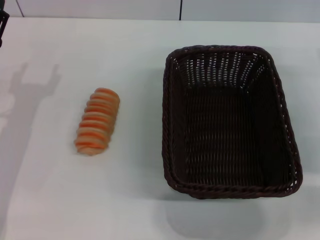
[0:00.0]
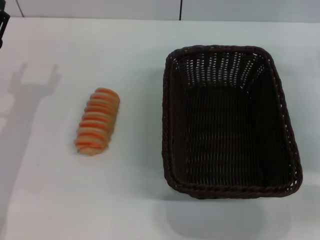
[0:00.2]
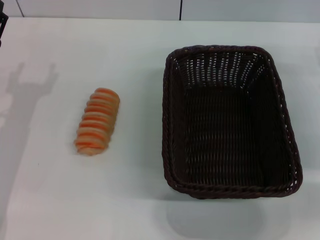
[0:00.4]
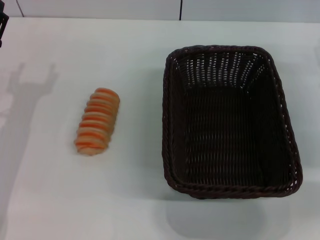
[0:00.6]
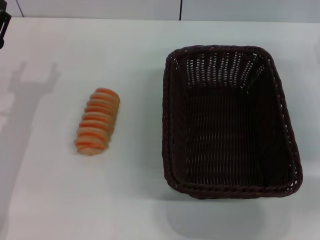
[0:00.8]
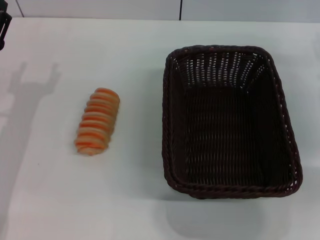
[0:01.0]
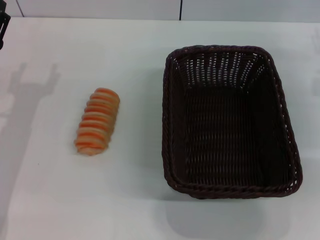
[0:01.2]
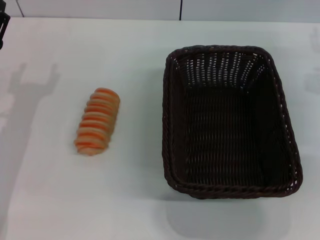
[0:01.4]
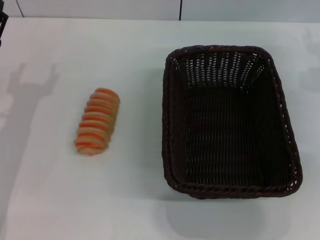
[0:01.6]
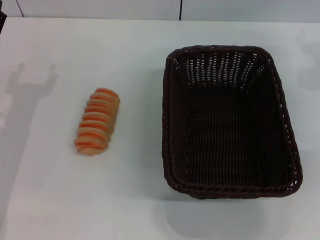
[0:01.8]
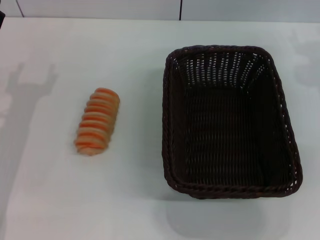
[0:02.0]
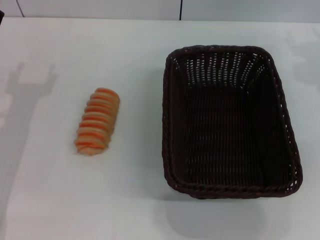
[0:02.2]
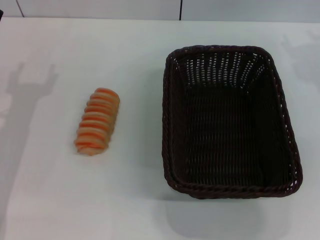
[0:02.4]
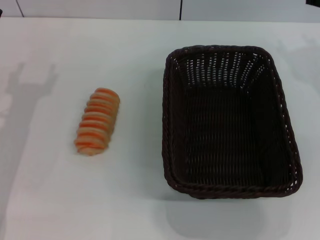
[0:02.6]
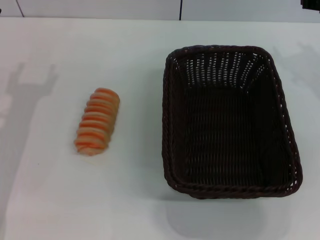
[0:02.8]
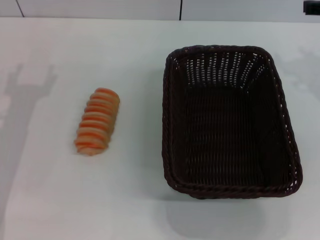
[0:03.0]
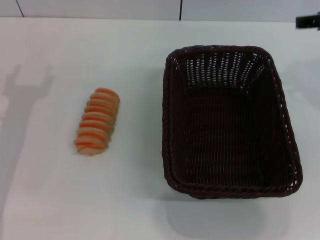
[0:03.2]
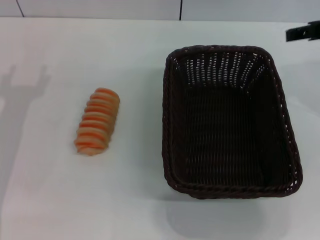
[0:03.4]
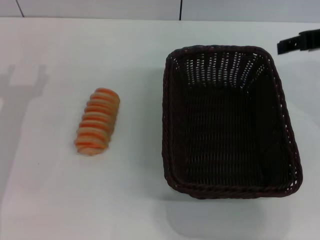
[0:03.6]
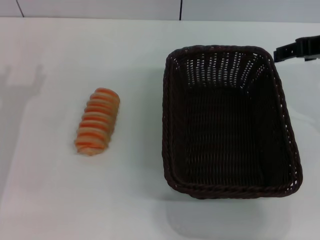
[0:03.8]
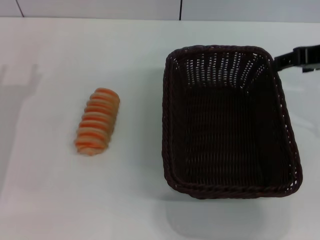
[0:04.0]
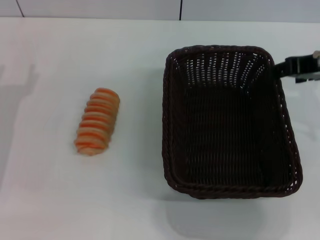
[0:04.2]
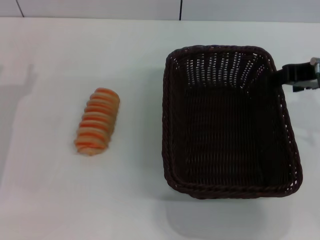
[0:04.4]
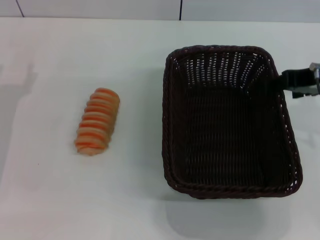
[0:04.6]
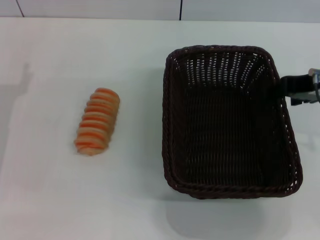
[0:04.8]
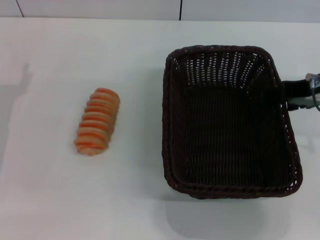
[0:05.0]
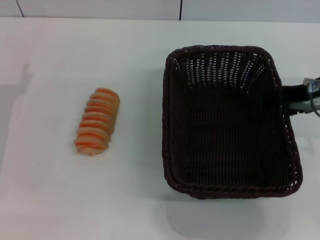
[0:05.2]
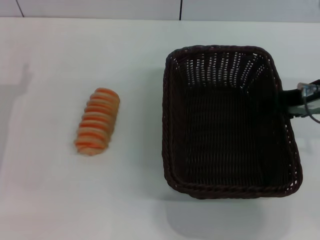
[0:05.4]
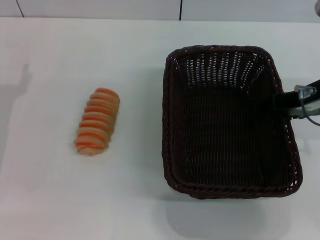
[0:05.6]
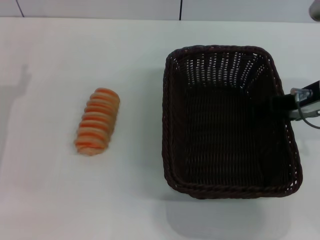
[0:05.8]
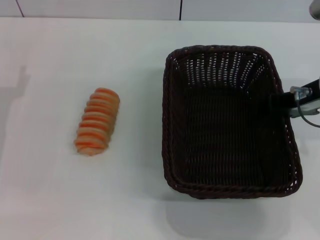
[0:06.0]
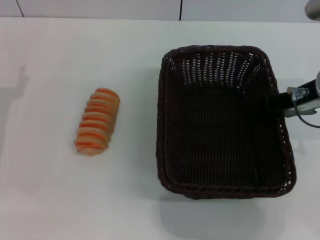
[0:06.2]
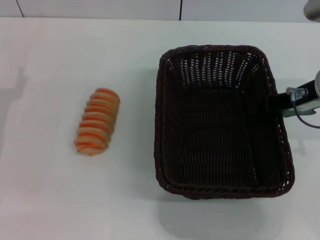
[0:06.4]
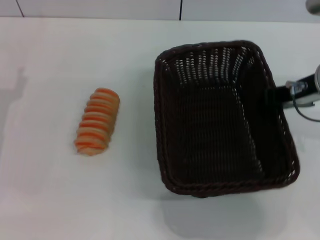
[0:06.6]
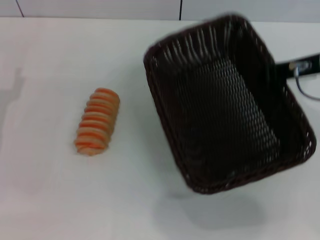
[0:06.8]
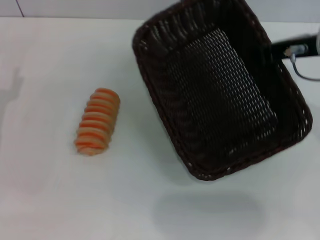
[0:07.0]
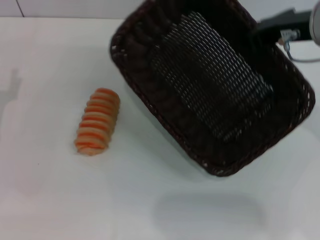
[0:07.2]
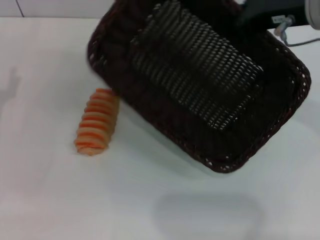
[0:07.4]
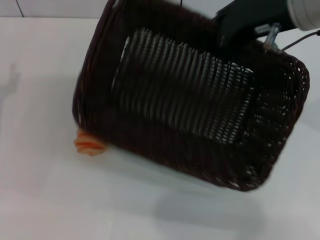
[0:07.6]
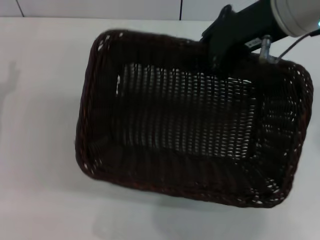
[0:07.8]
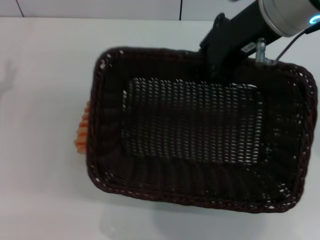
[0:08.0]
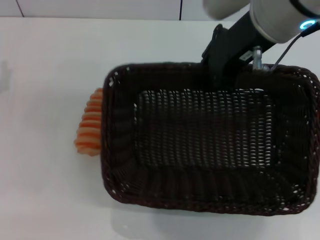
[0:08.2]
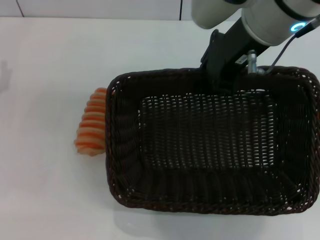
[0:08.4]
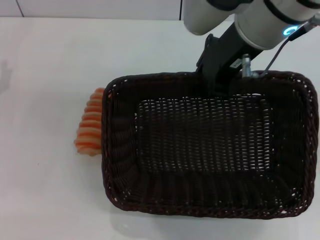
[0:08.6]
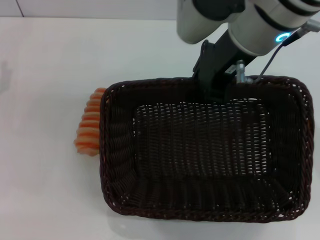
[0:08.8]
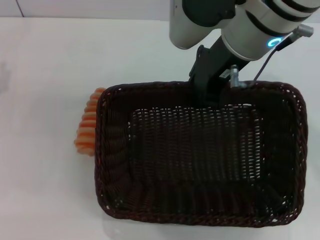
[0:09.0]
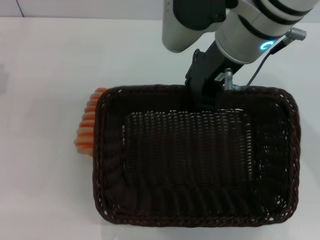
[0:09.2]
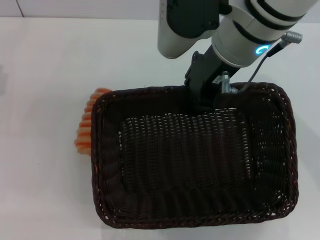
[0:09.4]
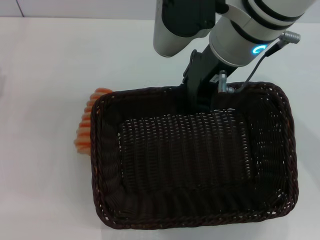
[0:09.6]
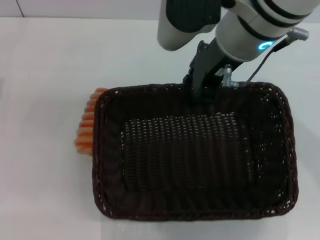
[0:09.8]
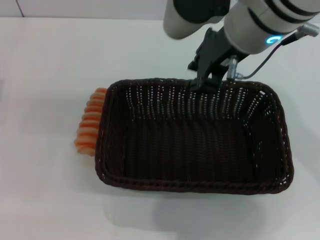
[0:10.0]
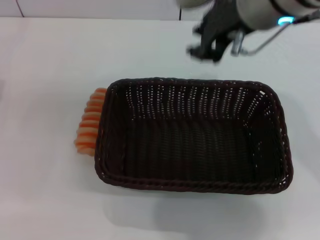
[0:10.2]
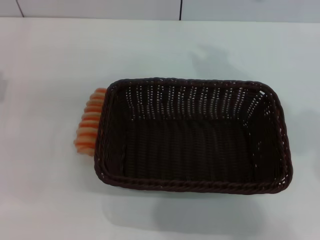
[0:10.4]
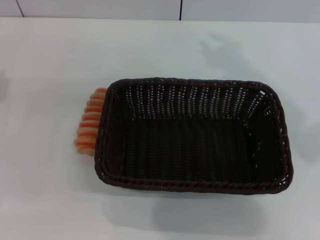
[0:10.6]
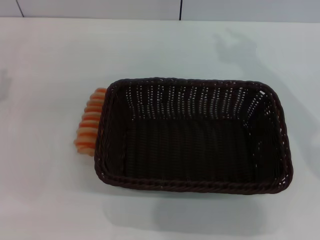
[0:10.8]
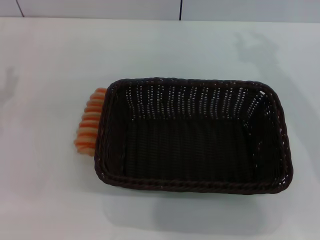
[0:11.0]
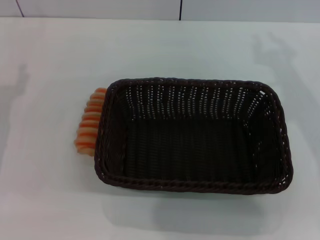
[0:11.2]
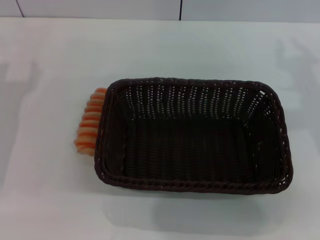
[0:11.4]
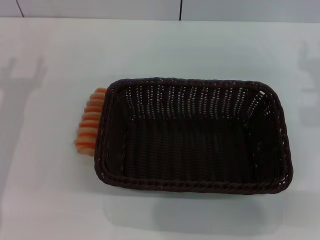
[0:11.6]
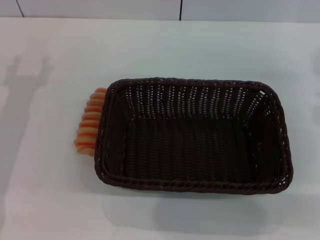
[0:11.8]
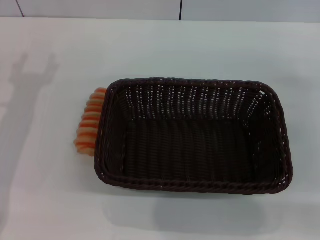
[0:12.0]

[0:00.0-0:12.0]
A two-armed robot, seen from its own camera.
Step, 0.0 to 7.0 s: Pick up the dark basket with the right gripper.
Step, 7.2 to 10.0 s: Place the dark basket in the center of view with the right gripper.
3.0 to 4.4 s: The right gripper changes place by roughly 5 cm.
4.4 to 6.0 s: The grippers stay close to where they were, moving slightly.
6.0 to 7.6 s: The right gripper shifts roughly 10 cm upward and to the left, and closes up.
7.6 to 9.0 s: The right gripper travels to the left by some 5 cm.
9.0 to 10.4 s: The right gripper goes about 5 cm upward.
10.4 to 12.0 s: The right gripper heads to the right and downward, covering roughly 30 cm.

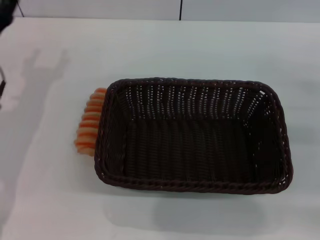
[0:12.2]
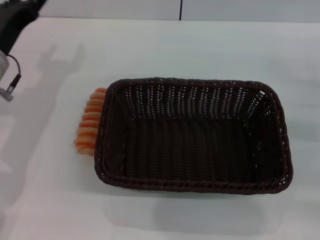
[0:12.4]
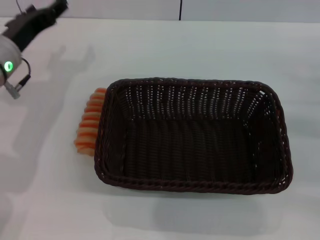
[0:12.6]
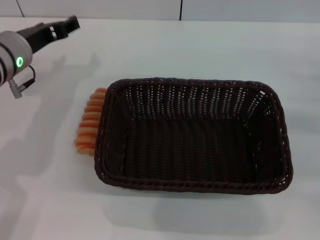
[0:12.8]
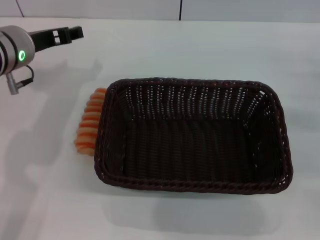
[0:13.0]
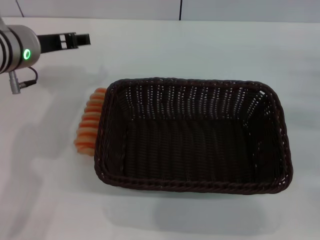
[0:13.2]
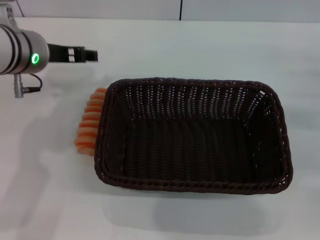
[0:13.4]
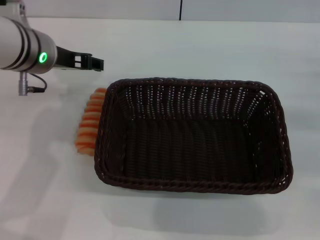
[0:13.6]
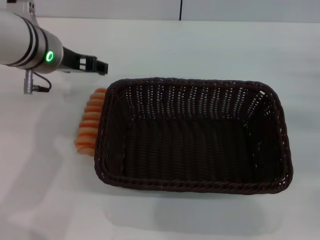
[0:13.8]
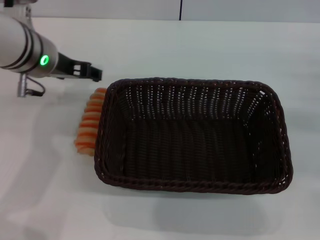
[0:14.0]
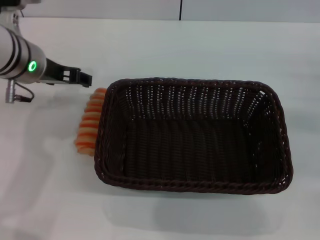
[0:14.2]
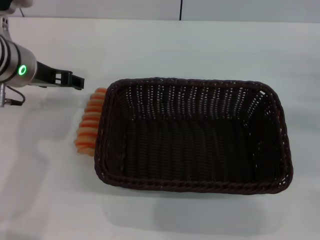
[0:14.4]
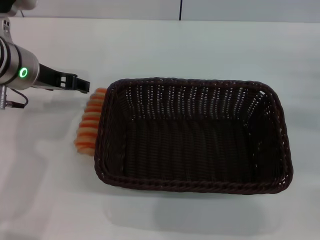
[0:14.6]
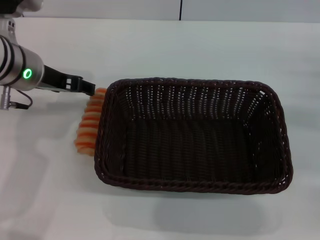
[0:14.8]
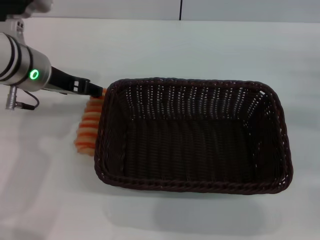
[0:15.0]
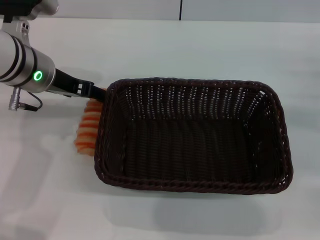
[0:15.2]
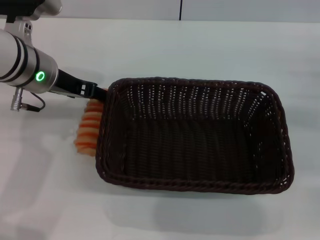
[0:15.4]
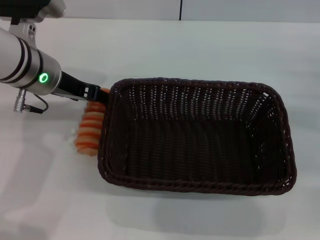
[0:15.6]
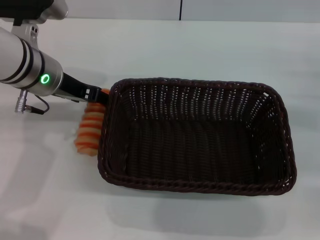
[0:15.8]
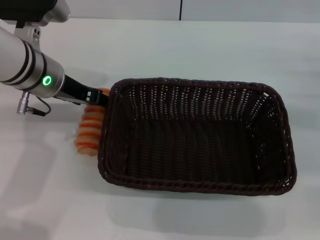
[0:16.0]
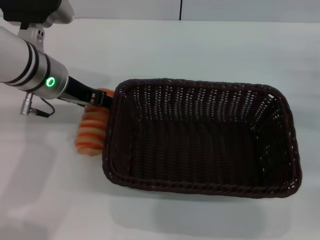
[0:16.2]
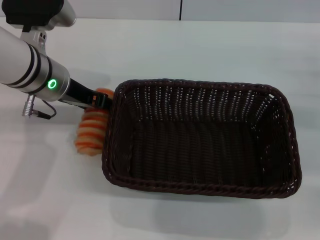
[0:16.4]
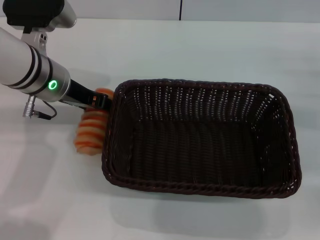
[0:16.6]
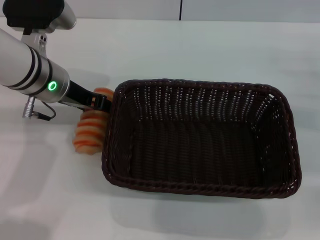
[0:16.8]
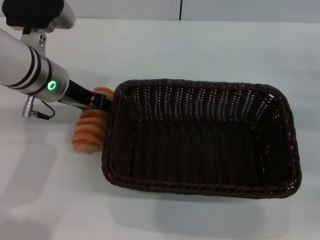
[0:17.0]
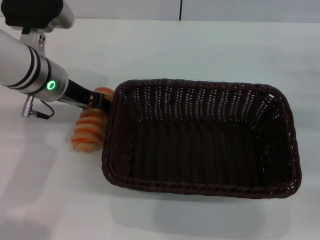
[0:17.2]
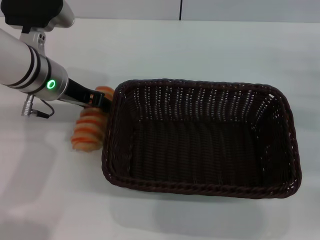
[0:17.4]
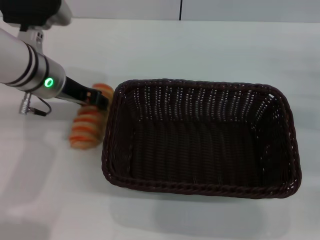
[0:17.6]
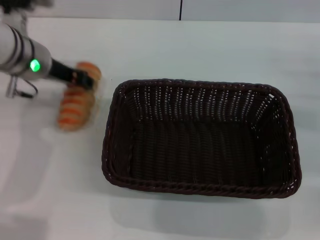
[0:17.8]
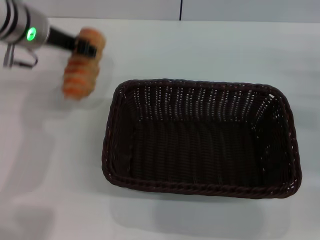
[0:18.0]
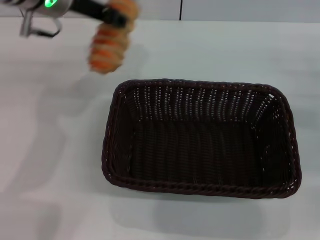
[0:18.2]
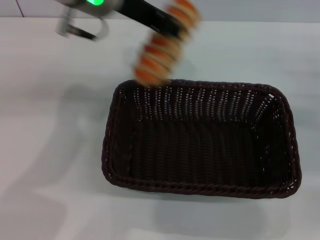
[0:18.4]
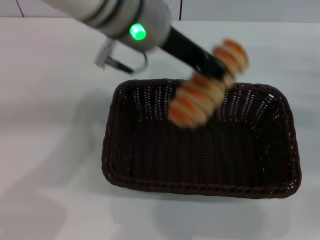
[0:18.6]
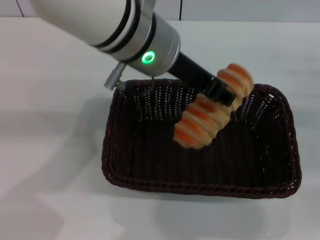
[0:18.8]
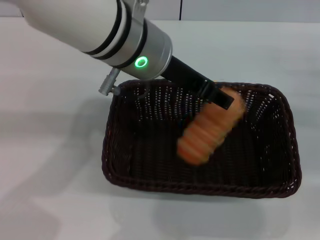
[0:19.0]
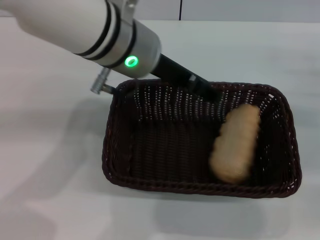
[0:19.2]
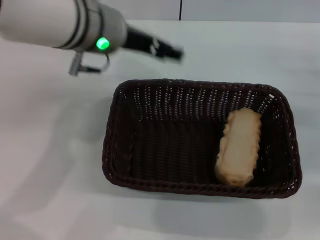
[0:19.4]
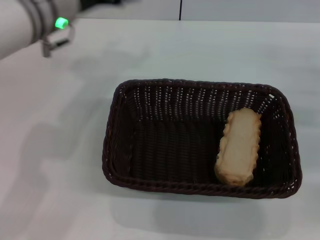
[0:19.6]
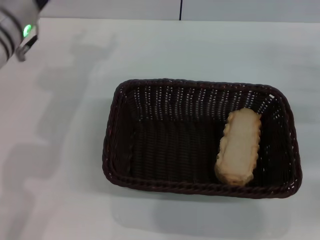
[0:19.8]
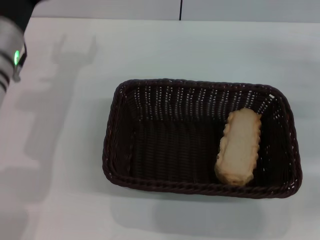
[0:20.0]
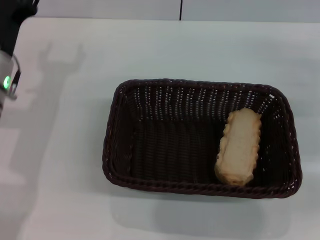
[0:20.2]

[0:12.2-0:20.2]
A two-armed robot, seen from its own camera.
Step, 12.2 to 17.8 s: Pick up the long bread with the left gripper.
Step, 18.2 to 19.0 s: Place the long bread into the dark basket with the left gripper.
12.2 to 13.8 s: The left gripper heads to the right and upward, covering about 15 cm.
13.8 to 17.0 s: The grippers move only a little.
17.0 to 18.6 s: The left gripper travels to the right and upward by about 15 cm, and closes up.
18.6 to 20.2 s: The left gripper travels to the left and downward by approximately 25 cm, and opens up.

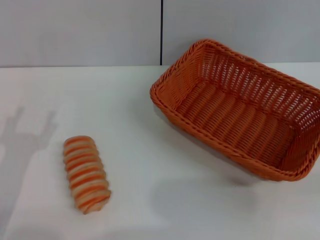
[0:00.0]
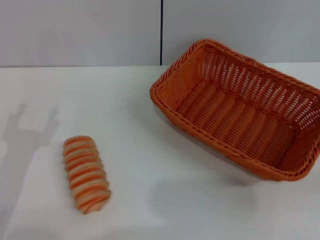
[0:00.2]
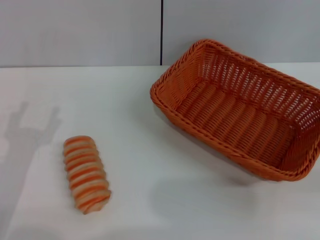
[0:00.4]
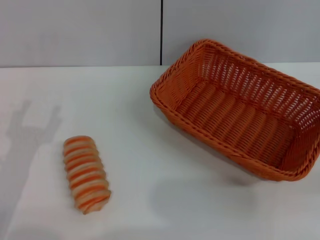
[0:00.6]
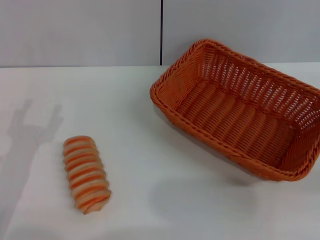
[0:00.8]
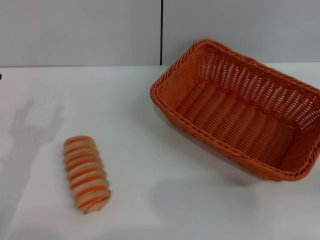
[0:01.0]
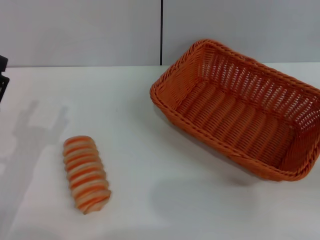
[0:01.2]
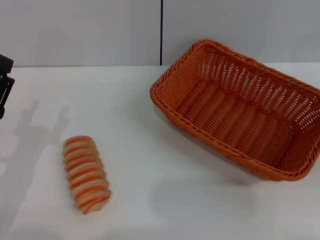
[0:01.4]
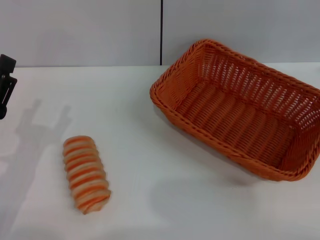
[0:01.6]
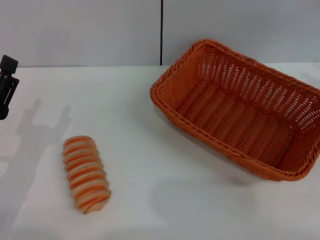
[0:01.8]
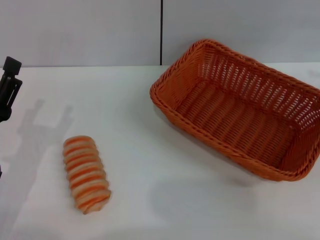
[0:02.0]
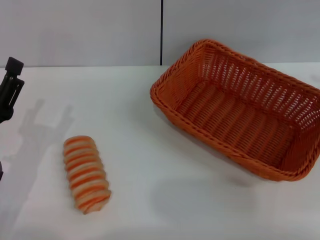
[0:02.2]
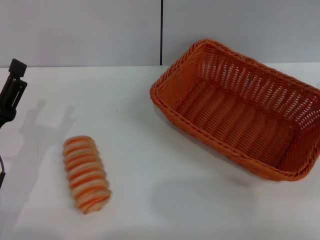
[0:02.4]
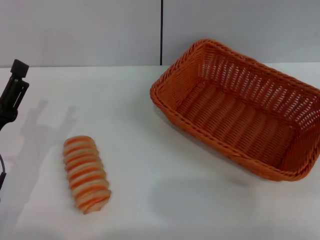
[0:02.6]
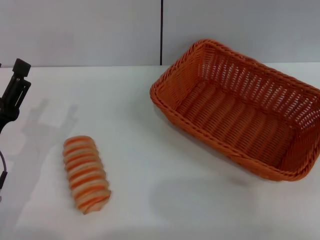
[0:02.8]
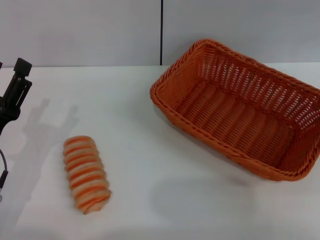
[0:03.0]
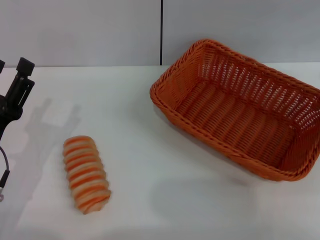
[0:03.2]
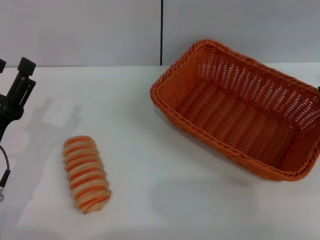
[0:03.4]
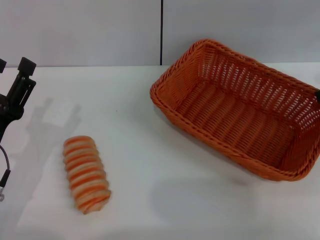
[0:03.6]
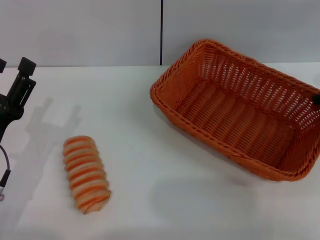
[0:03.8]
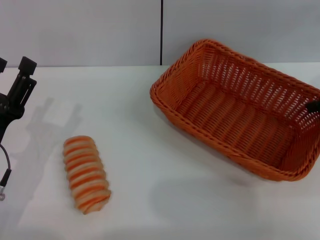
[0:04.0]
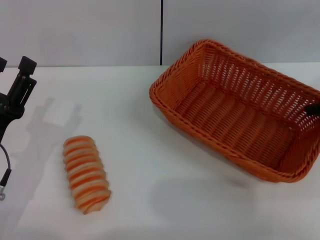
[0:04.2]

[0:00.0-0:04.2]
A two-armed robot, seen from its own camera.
2.8 to 4.2 s: The right gripper moves downward, about 5 cm.
